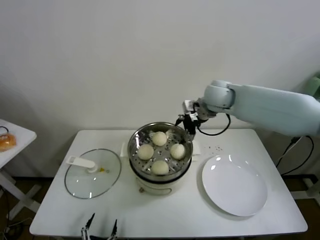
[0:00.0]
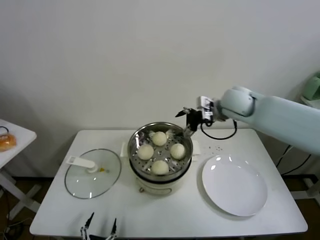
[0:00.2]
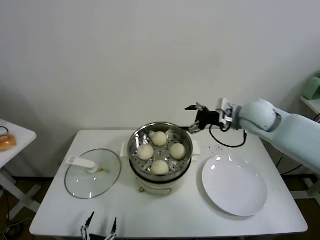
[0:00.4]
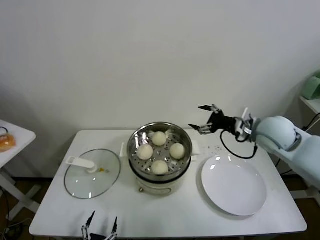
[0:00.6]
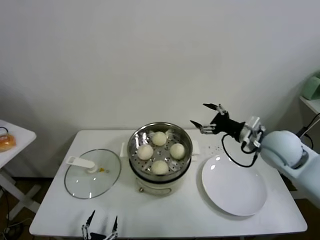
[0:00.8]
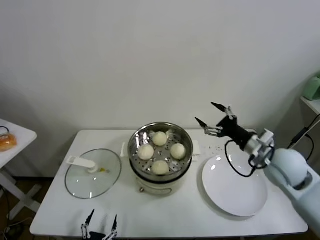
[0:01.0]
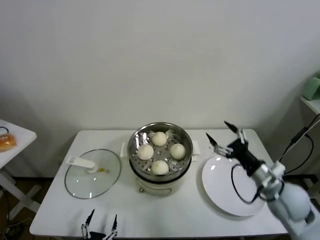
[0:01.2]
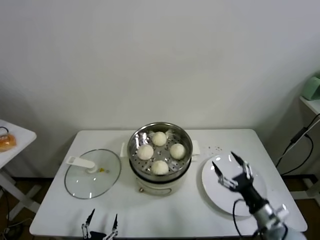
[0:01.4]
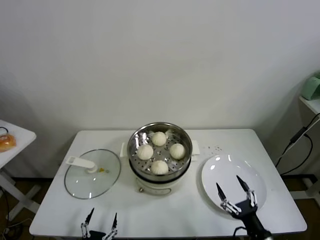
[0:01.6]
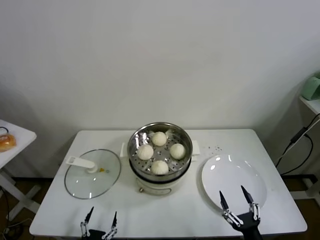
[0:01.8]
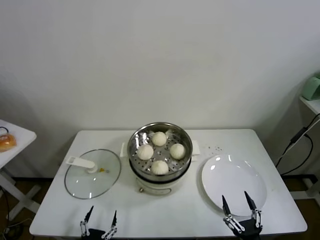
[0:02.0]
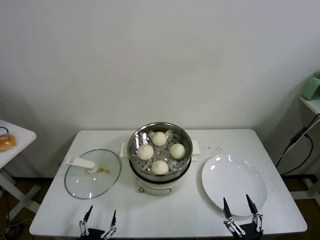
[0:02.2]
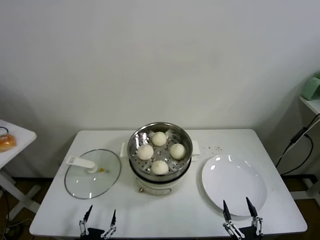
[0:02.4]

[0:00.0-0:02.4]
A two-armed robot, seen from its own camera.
Task of the whole recording: take steamed baozi put them in steamer.
0:00.0 to 0:01.2: The right gripper travels backward, to the right and downward by some 30 cm.
0:01.2 to 0:02.4: The right gripper shifts approximately 30 cm backward and downward.
